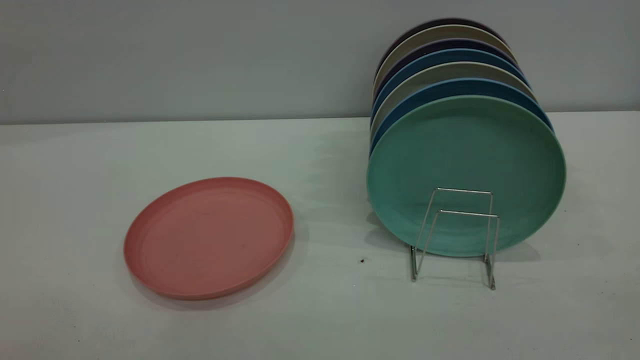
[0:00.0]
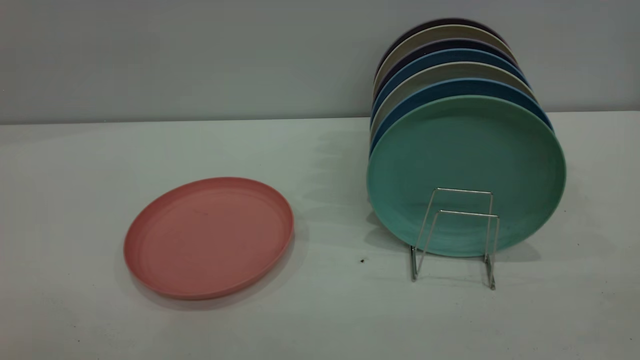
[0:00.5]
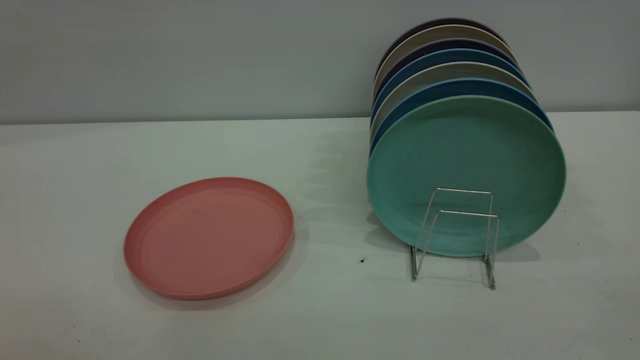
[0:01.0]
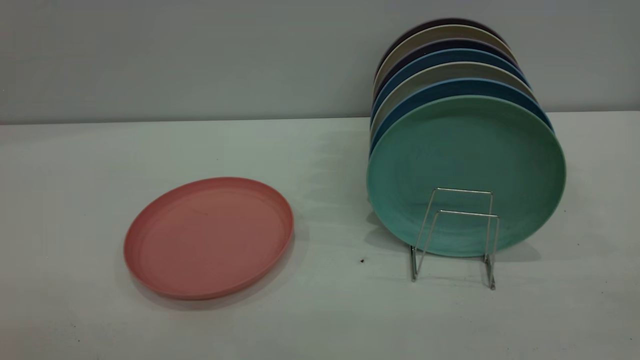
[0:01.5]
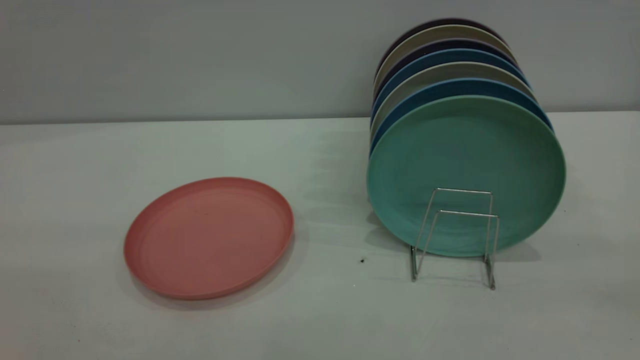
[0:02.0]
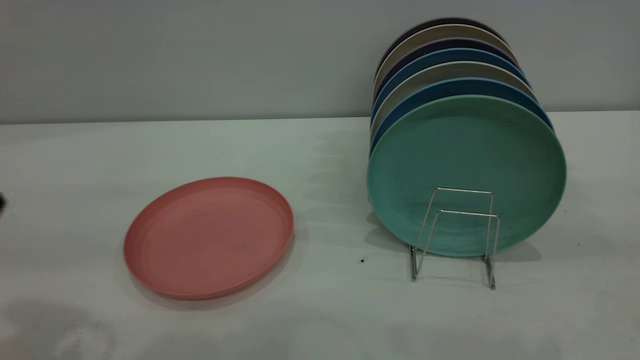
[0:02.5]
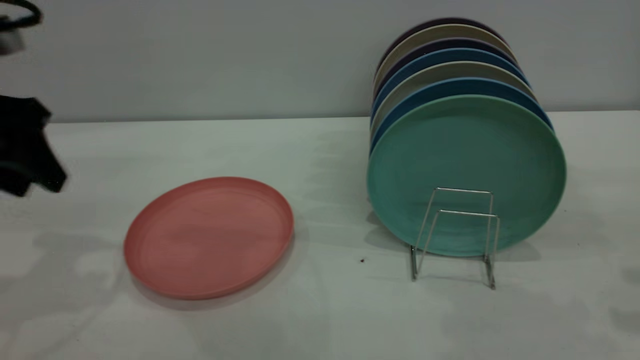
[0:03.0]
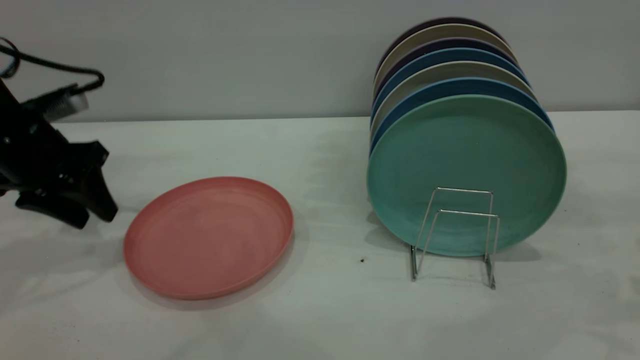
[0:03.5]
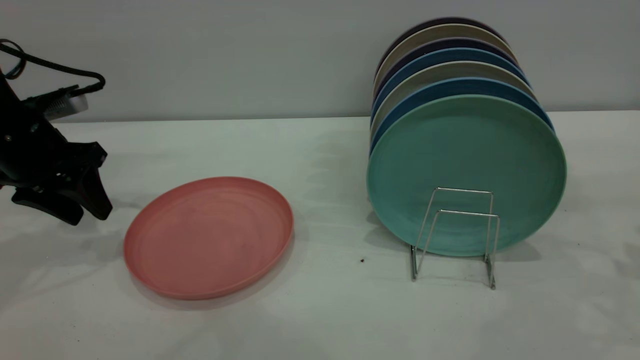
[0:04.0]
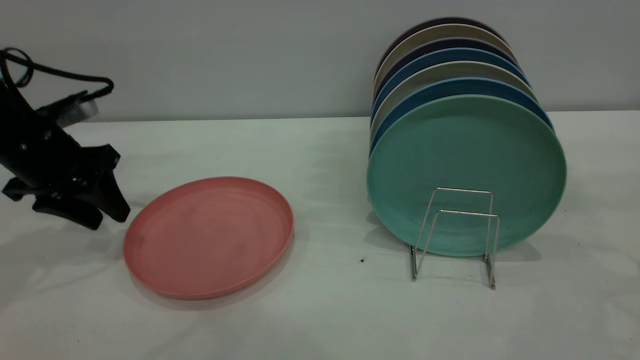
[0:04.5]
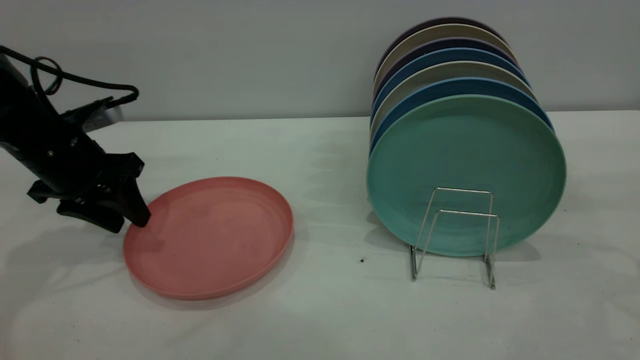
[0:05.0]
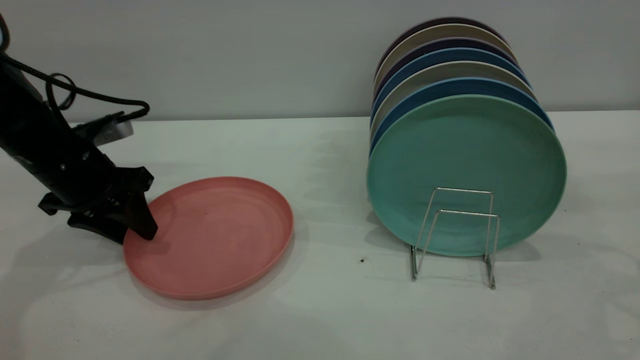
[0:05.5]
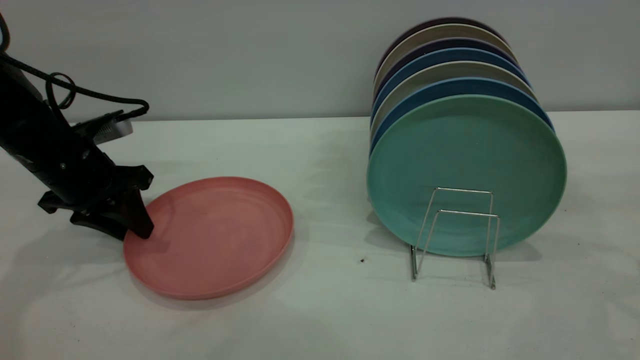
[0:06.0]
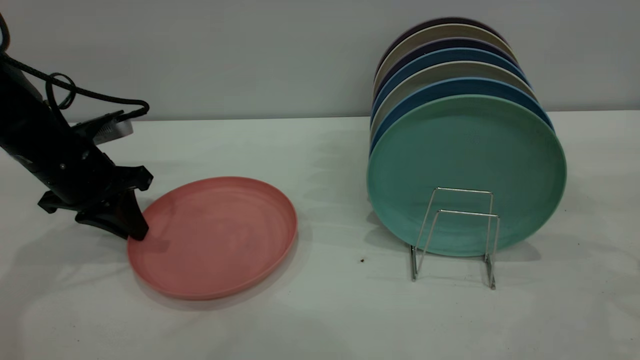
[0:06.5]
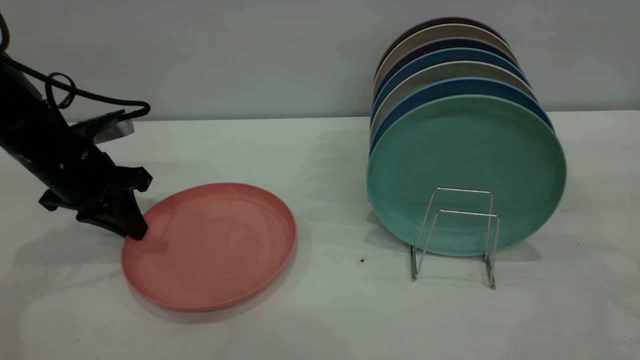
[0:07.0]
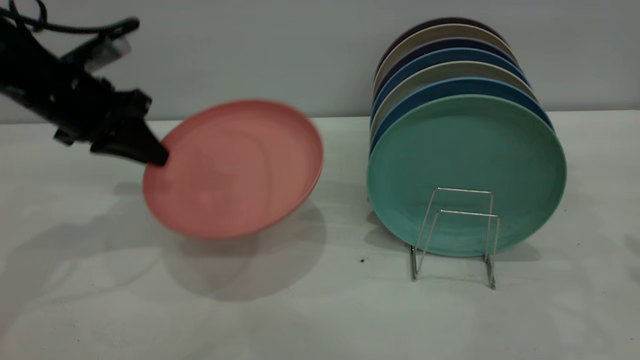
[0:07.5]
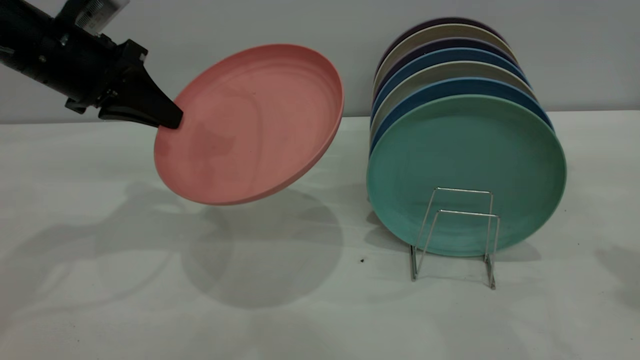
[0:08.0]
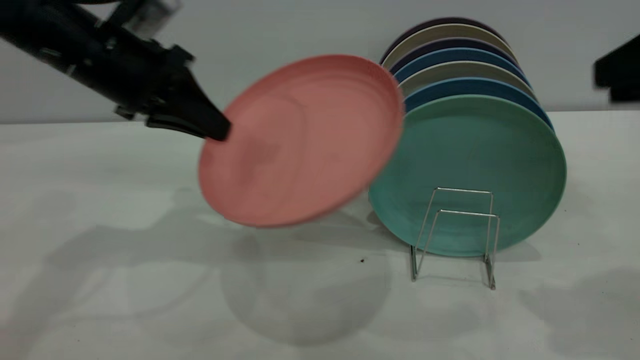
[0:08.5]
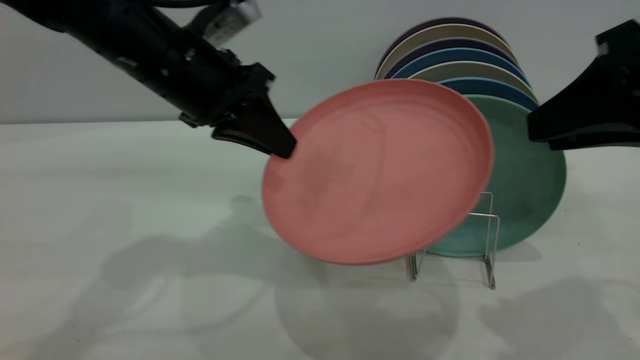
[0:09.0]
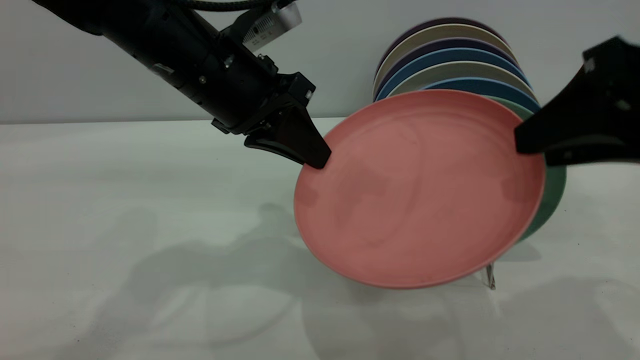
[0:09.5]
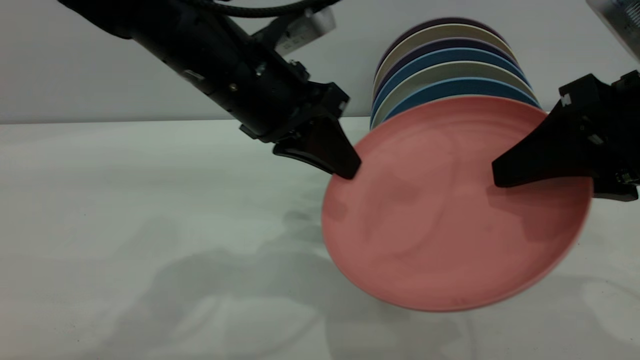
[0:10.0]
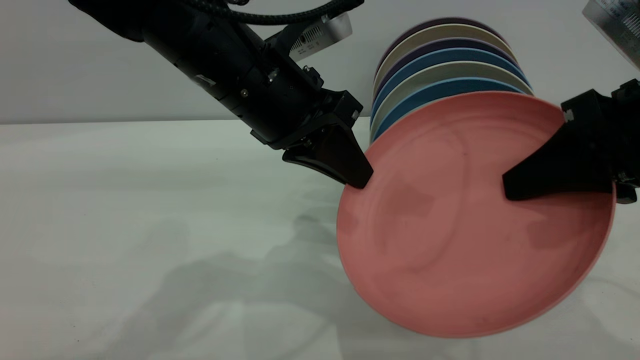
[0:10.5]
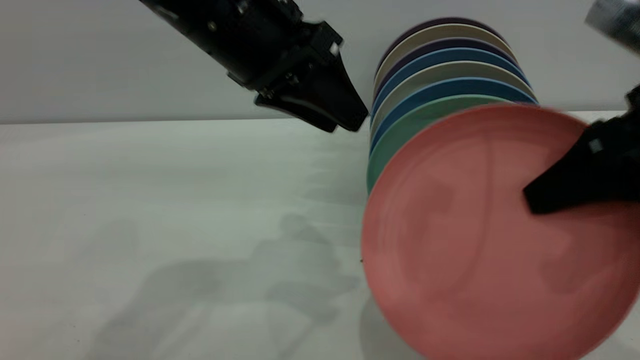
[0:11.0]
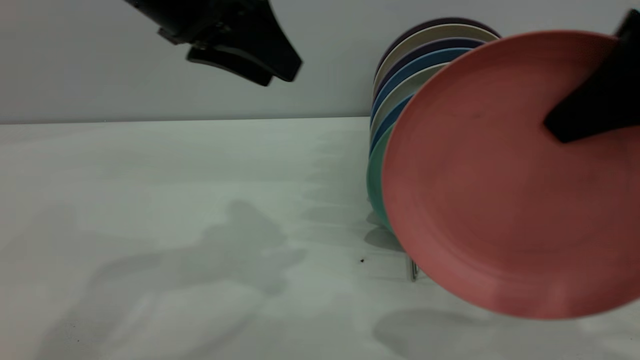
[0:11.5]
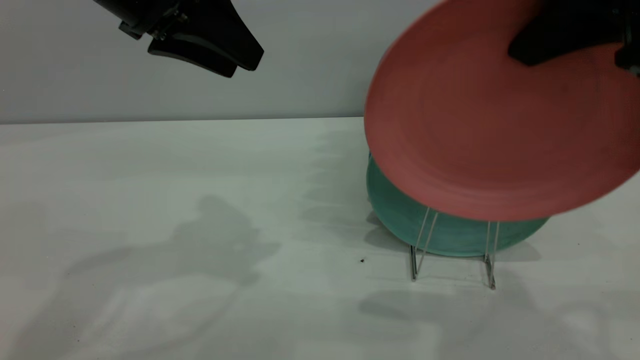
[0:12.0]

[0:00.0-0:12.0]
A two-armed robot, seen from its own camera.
Task of the whole recording: put the plate on the plate rack.
Step, 0:00.0 to 0:07.0: Pick up the plate with the left gripper.
Step, 0:07.5 to 0:10.5: Pass the plate from the left gripper to the right gripper.
0:02.0 to 0:04.0: The left gripper heads forward and downward, covering about 40 cm.
0:04.0 to 0:06.0: The left gripper changes place by approximately 5 cm, and closes up.
0:06.0 to 0:08.0: Both grippers travel together upward, approximately 10 cm. The left gripper closes its fingers.
0:08.0 to 0:10.0: The left gripper travels to the right by some 20 cm, while the right gripper moves to the left and downward, roughly 15 cm, and opens its fingers.
0:10.0 to 0:12.0: The right gripper goes roughly 15 cm upward and to the left, and closes. Meanwhile the left gripper heads to the left and upward, covering some 15 cm, and opens up.

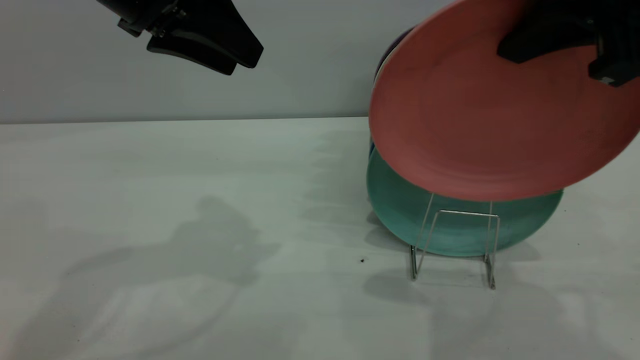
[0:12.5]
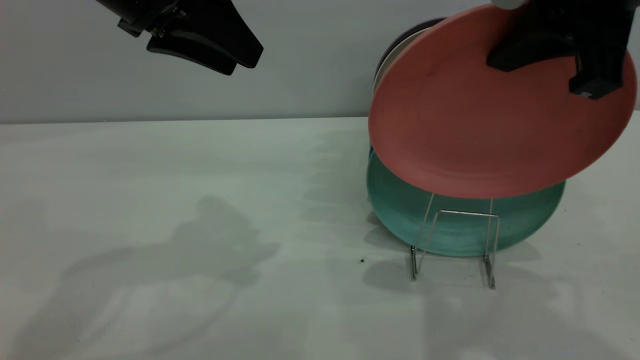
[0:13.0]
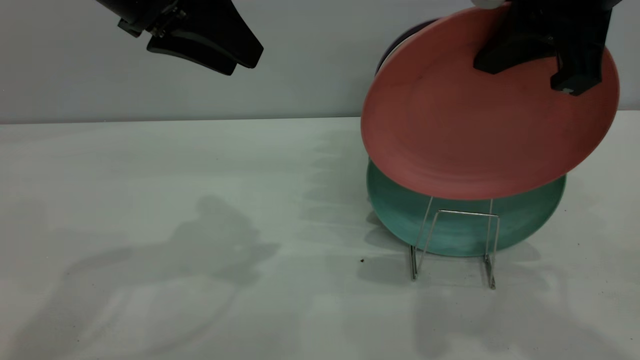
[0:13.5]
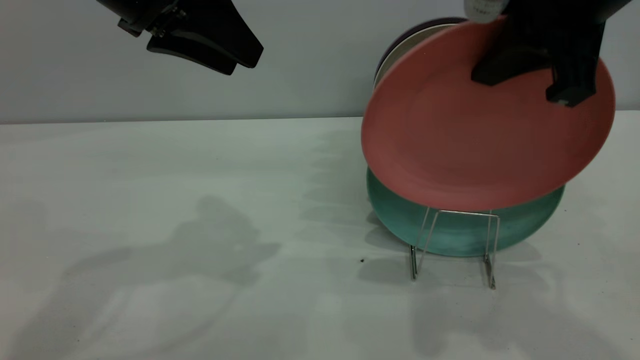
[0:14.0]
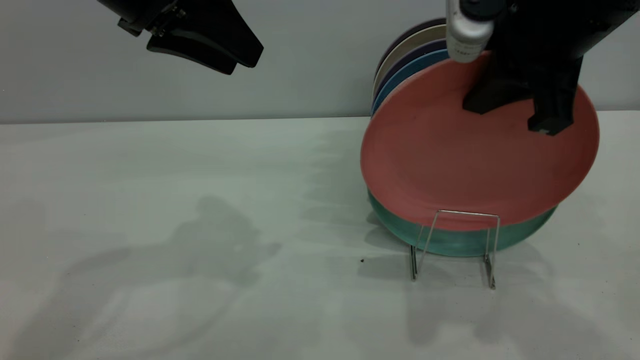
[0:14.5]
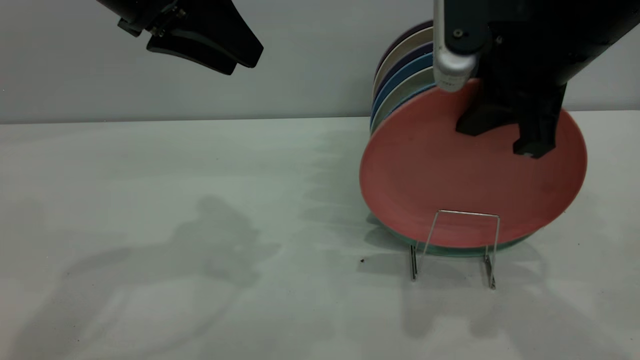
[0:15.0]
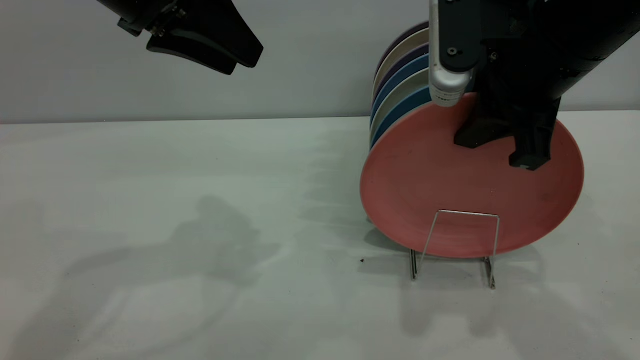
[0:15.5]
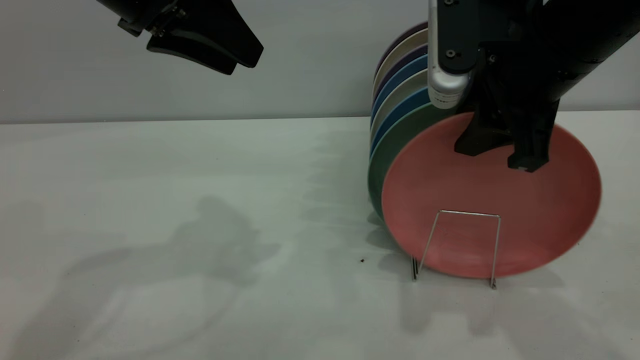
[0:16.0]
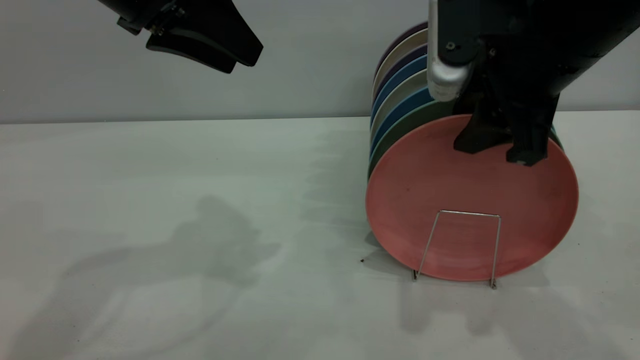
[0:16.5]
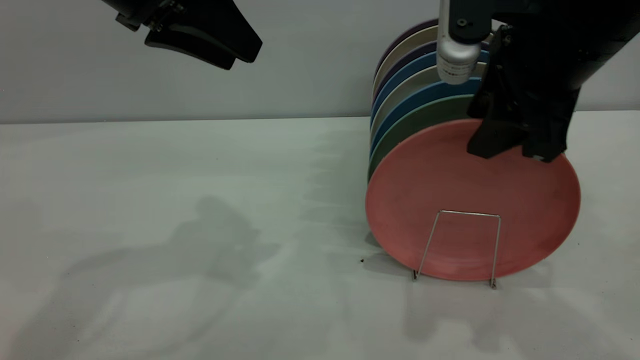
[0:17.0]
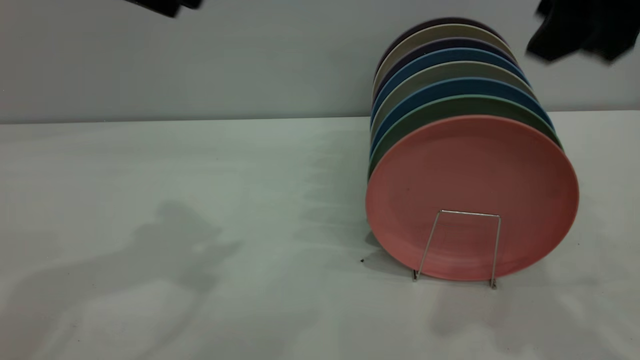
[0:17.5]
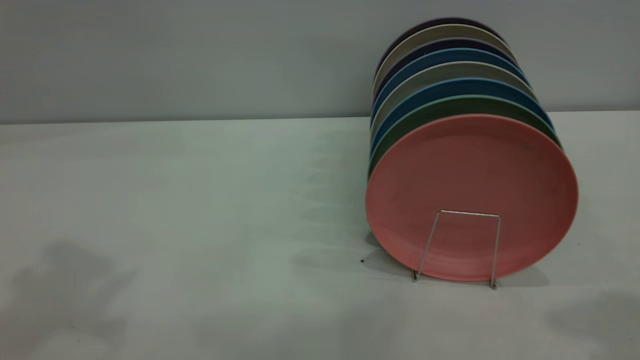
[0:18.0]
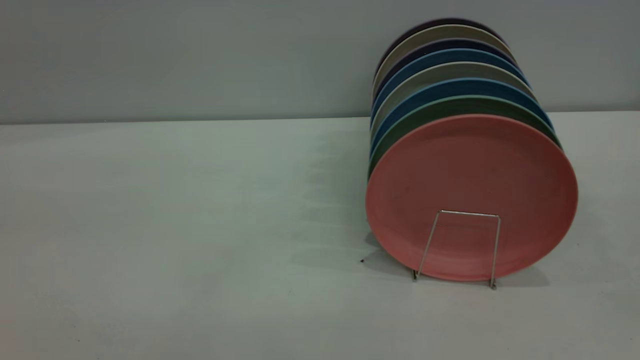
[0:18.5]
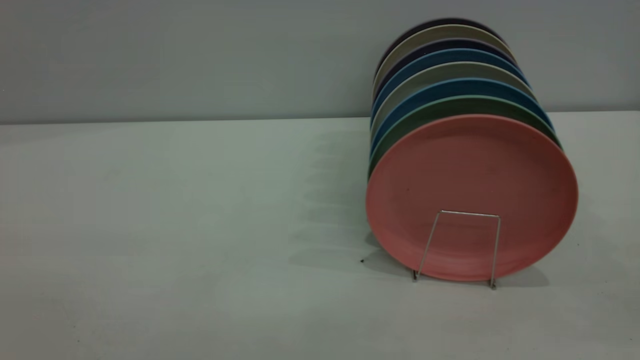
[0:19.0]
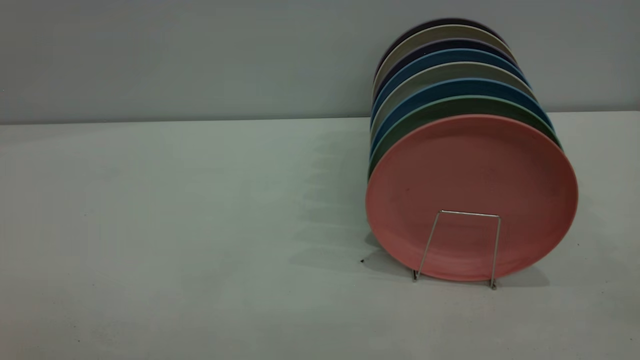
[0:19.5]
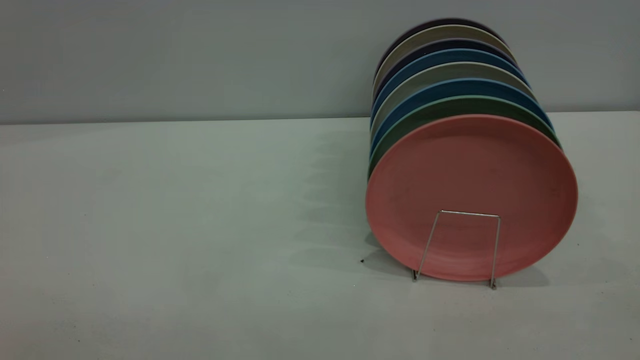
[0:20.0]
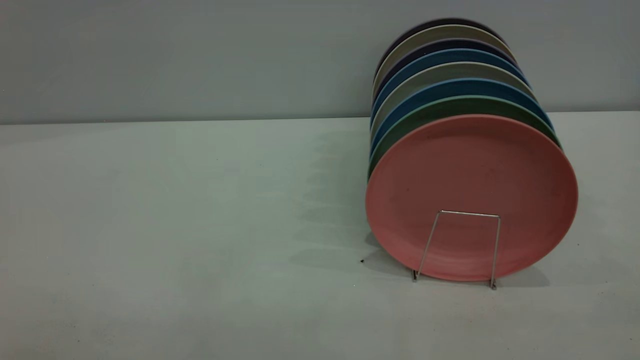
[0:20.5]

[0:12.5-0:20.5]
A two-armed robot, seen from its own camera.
Task of the whole recording: put the plate on the plate rack.
Step, 0:12.5 to 0:17.0: Place the plate on the shelf.
0:12.5 to 0:14.5: The right gripper goes about 5 cm downward.
0:14.5 to 0:16.5: The right gripper opens.
0:16.5 to 0:18.5: The left gripper travels backward, upward and to the left by about 35 cm; the right gripper travels backward, upward and to the right by roughly 30 cm.
